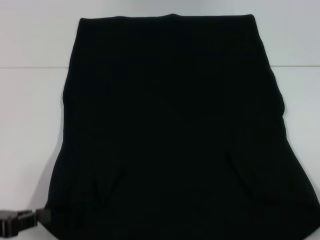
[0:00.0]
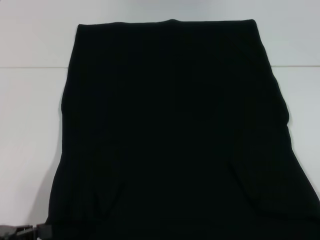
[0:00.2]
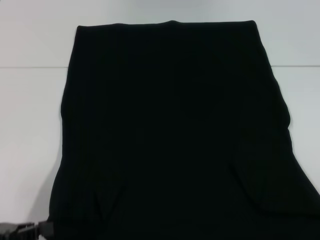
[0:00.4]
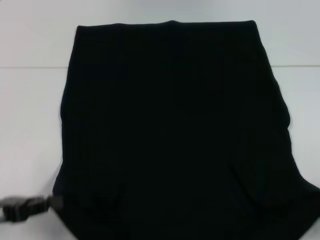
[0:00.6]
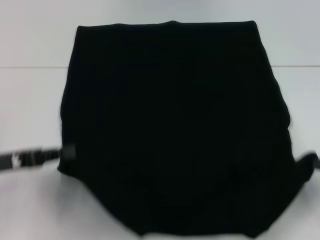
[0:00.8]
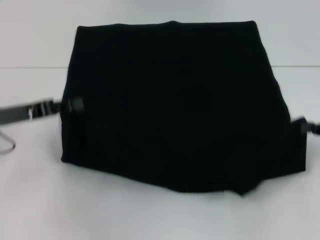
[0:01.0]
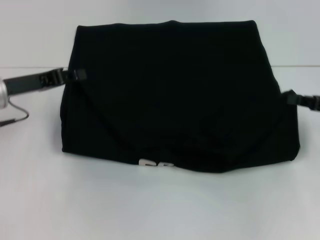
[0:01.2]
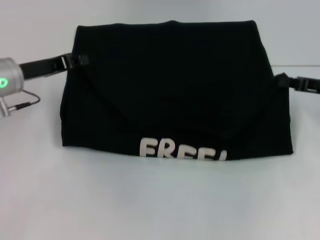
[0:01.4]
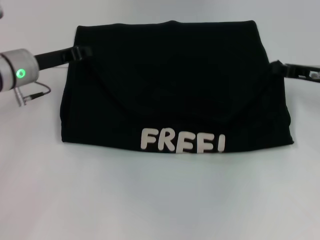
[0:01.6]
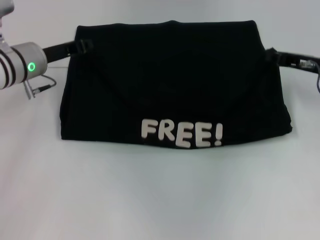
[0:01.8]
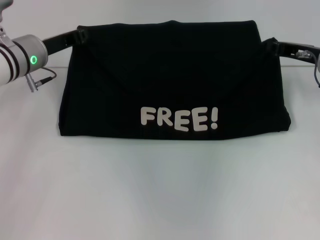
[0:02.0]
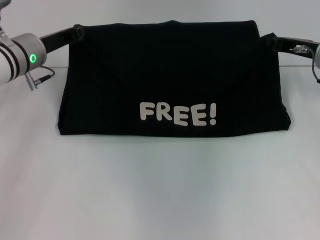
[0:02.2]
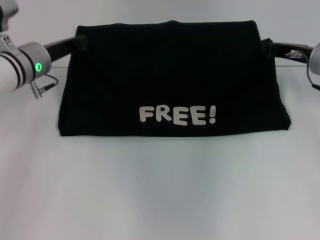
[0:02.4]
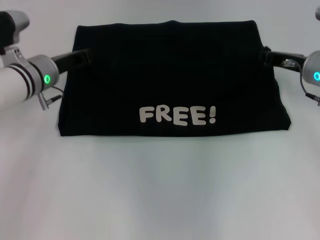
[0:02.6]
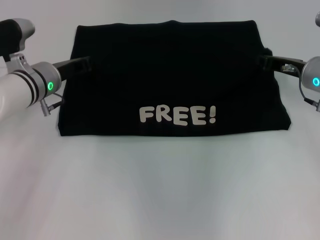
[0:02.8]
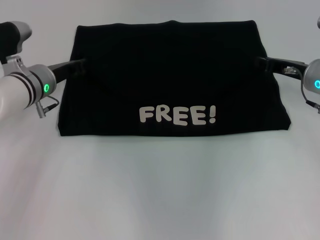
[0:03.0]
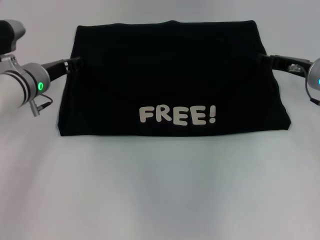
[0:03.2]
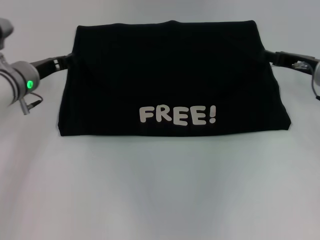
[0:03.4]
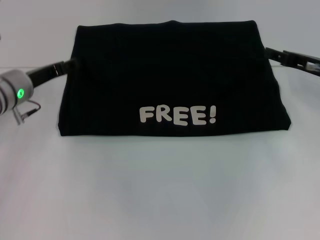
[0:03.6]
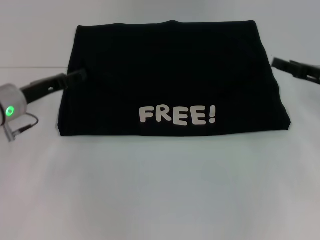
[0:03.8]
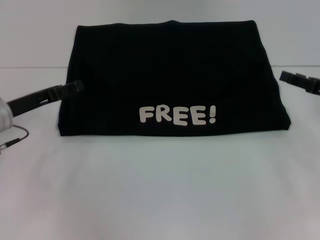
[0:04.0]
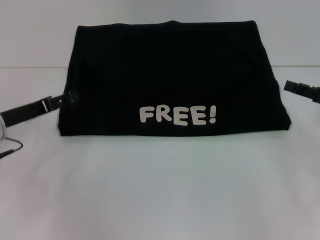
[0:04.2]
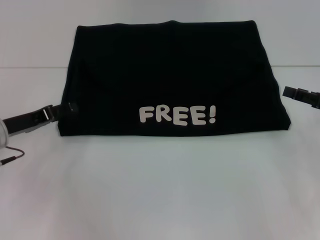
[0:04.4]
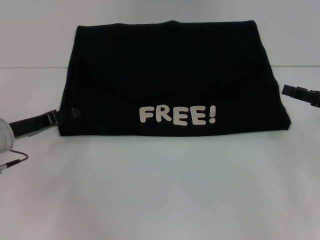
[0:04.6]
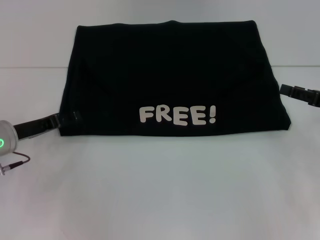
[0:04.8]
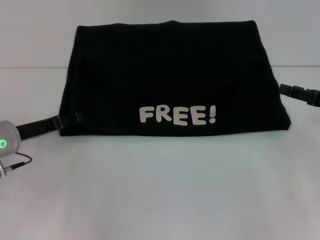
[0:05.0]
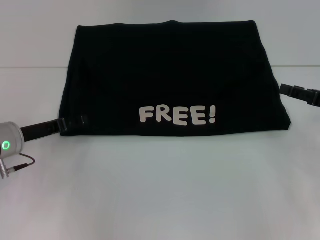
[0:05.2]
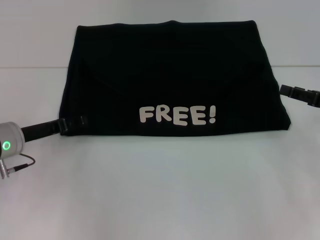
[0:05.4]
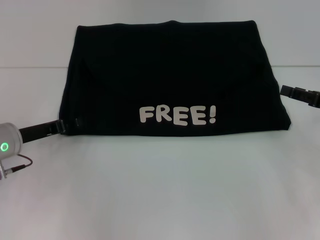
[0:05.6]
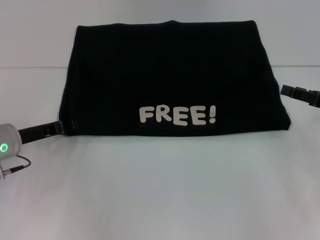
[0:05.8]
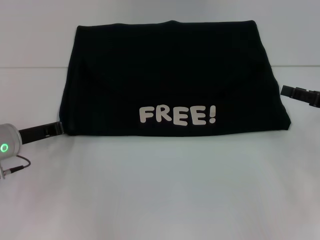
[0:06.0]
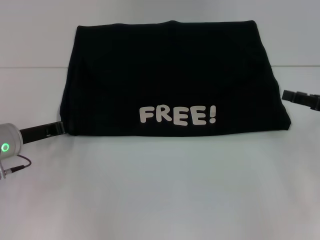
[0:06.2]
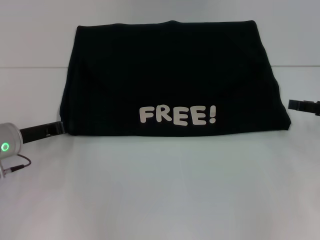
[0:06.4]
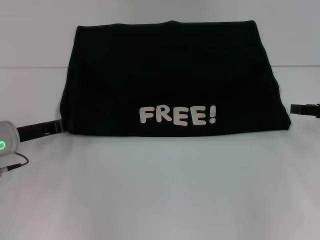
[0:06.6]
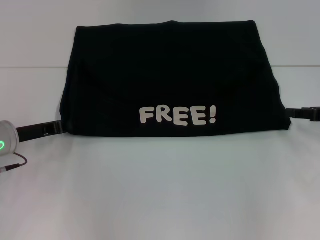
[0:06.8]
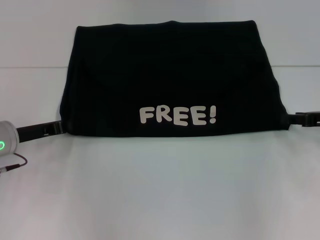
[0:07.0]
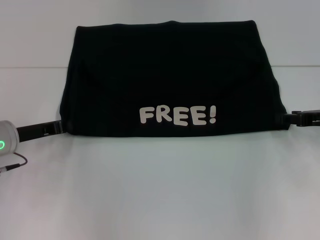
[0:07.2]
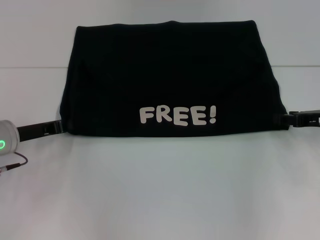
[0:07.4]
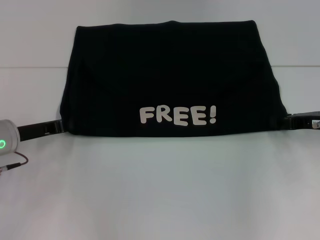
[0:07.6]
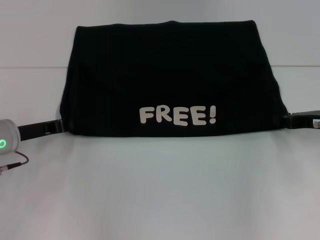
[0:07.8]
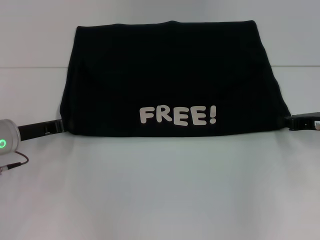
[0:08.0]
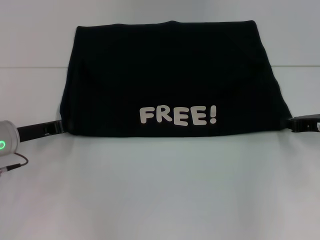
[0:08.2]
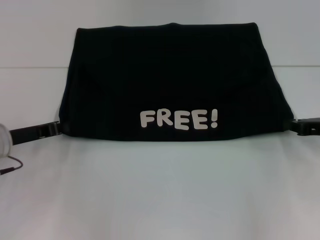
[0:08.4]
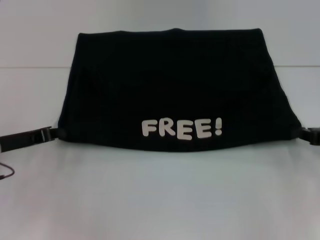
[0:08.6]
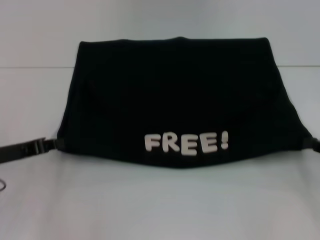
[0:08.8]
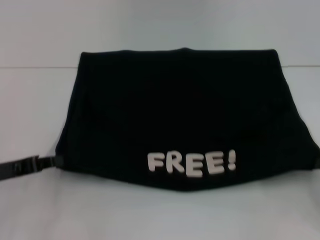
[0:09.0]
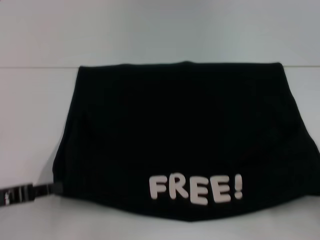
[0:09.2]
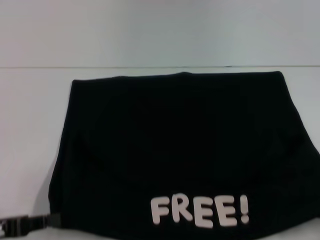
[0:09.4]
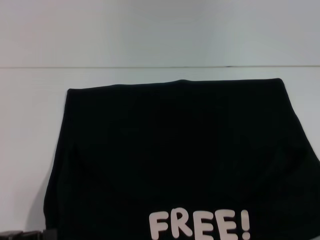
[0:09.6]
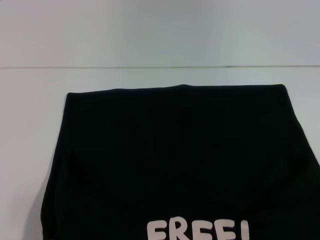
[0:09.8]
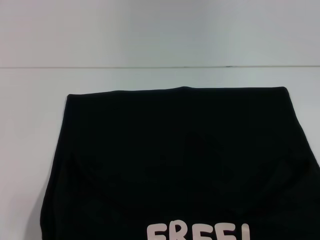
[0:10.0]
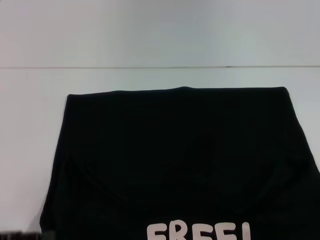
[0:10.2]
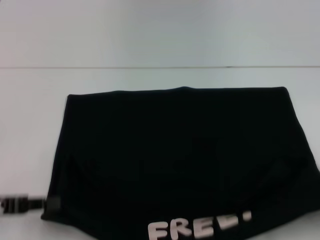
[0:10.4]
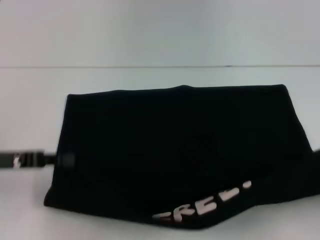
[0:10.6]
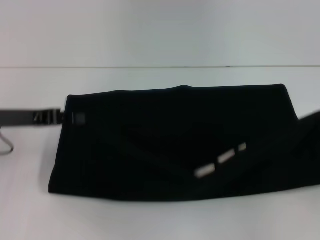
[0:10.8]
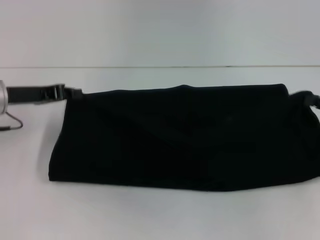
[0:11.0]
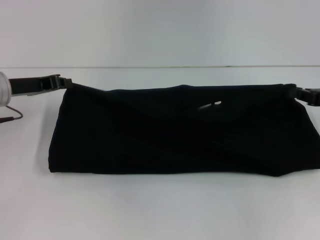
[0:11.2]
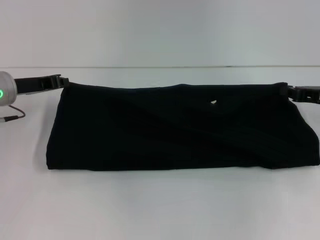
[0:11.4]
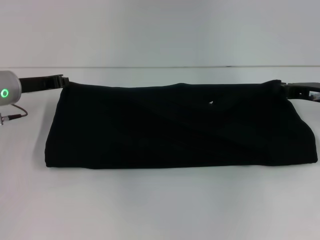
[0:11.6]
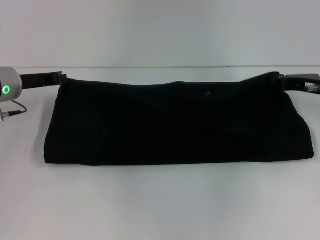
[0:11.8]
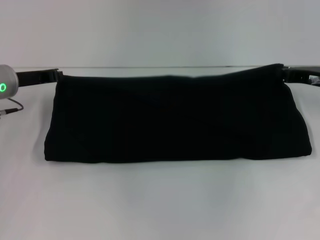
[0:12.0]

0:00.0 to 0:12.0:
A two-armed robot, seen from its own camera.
Step, 0:00.0 to 0:03.2: Fold the clothes with your left hand.
Step, 0:00.0 to 0:03.2: Fold the clothes with your right hand.
Step, 0:03.4 to 0:10.0: Pull the clothes with your left hand.
Step, 0:03.4 to 0:10.0: Pull the clothes with your right hand.
0:00.0 to 0:01.6: The right gripper shifts roughly 25 cm forward and to the left. Meanwhile the left gripper travels forward by approximately 25 cm.
0:01.6 to 0:03.0: The grippers stay close to where they were, moving slightly.
0:03.0 to 0:04.4: The left gripper moves backward and to the left, approximately 10 cm, and opens up. The right gripper travels to the right and backward by some 15 cm, and opens.
0:04.4 to 0:06.0: The left gripper closes up.
0:06.0 to 0:07.6: The left gripper closes.
0:07.6 to 0:09.0: The right gripper moves backward and to the right, approximately 15 cm, and closes; the left gripper is displaced backward by about 10 cm.
0:09.0 to 0:10.4: The right gripper heads backward, covering approximately 10 cm.
0:10.4 to 0:12.0: The right gripper travels forward and to the left by roughly 25 cm, while the left gripper heads forward, covering roughly 20 cm.

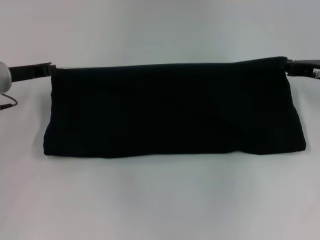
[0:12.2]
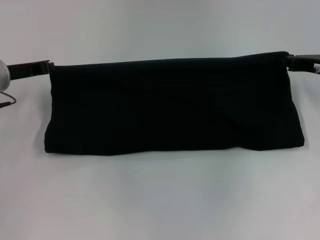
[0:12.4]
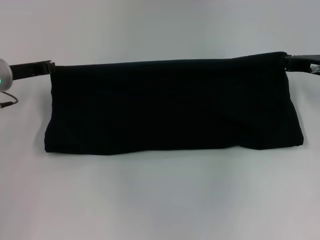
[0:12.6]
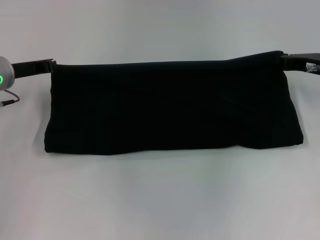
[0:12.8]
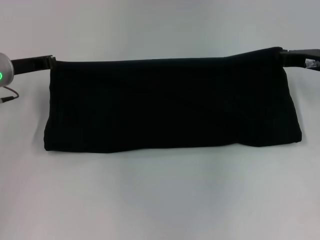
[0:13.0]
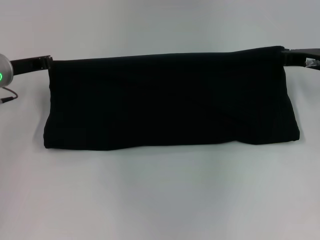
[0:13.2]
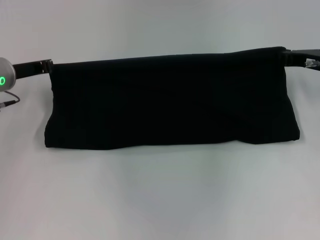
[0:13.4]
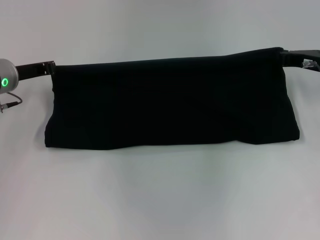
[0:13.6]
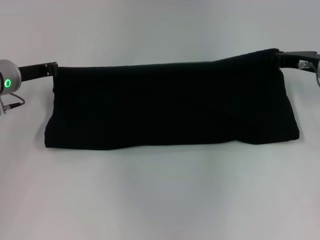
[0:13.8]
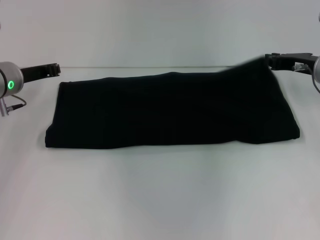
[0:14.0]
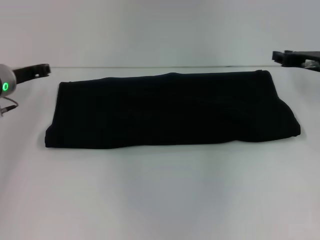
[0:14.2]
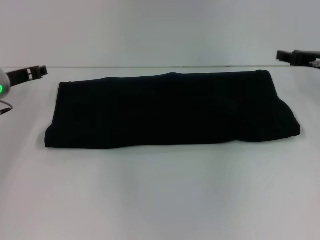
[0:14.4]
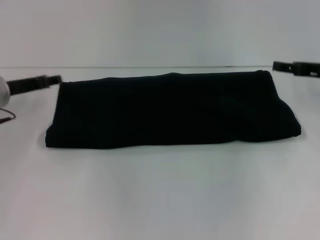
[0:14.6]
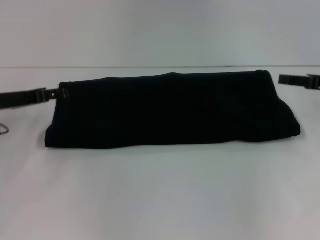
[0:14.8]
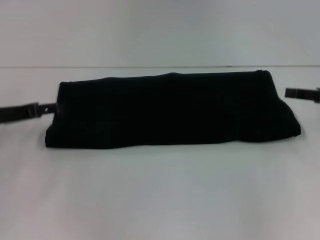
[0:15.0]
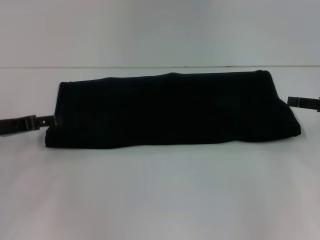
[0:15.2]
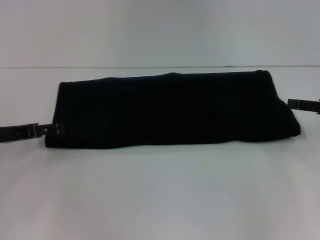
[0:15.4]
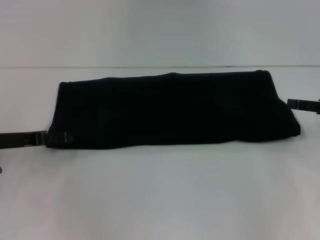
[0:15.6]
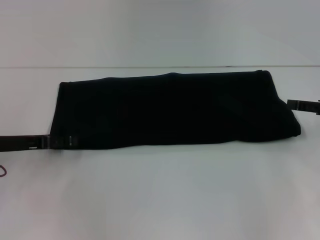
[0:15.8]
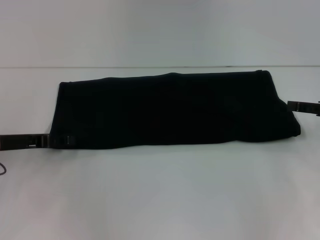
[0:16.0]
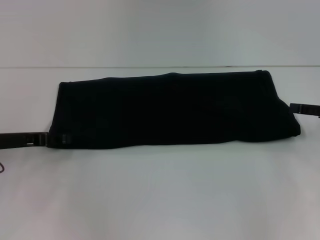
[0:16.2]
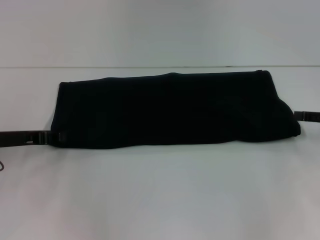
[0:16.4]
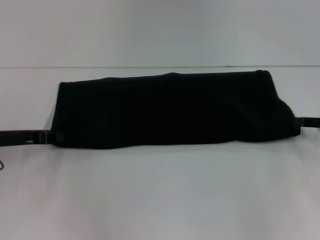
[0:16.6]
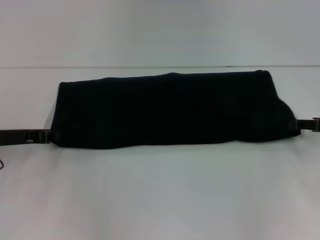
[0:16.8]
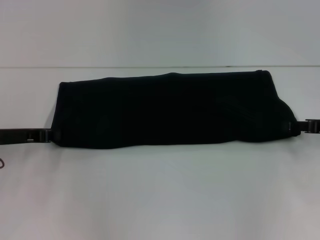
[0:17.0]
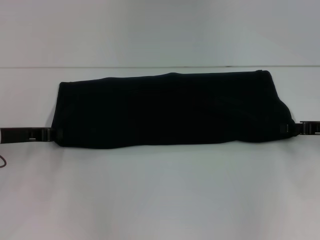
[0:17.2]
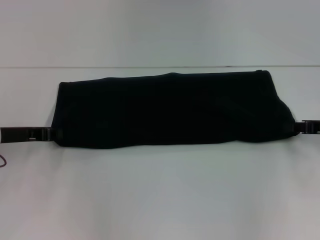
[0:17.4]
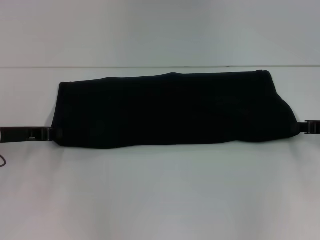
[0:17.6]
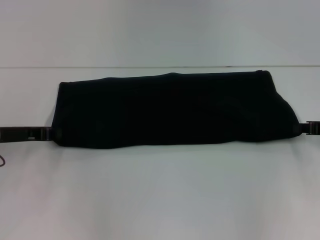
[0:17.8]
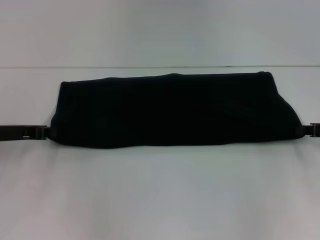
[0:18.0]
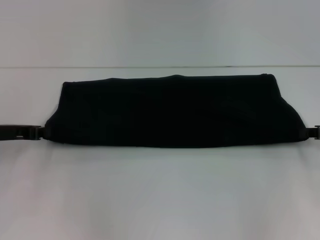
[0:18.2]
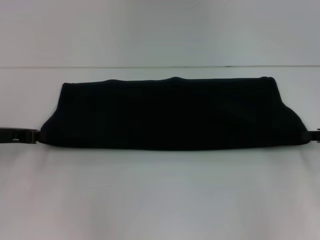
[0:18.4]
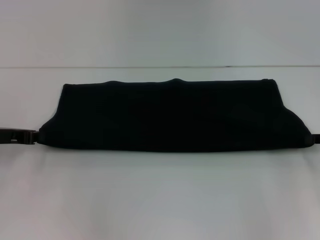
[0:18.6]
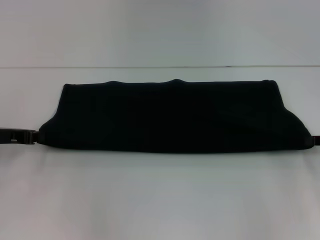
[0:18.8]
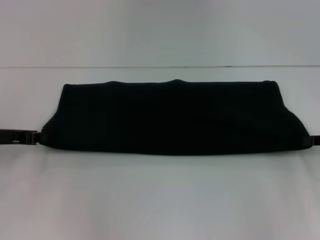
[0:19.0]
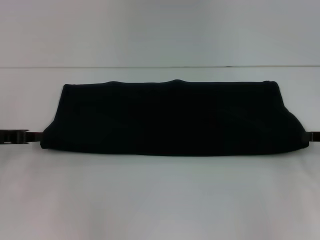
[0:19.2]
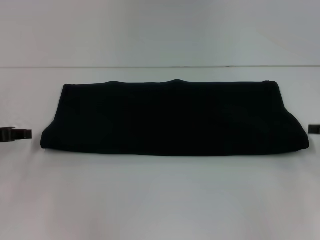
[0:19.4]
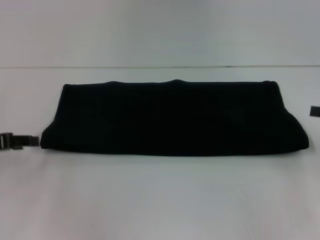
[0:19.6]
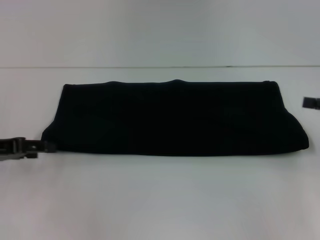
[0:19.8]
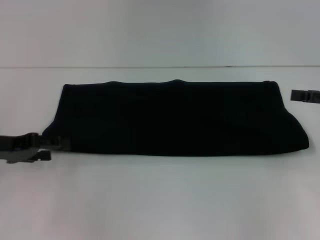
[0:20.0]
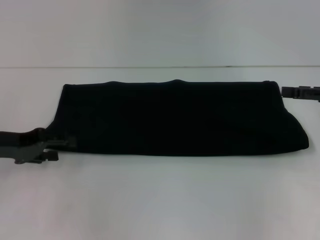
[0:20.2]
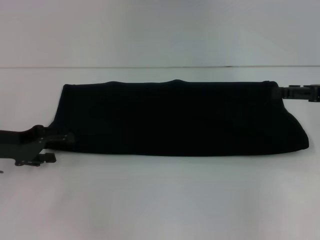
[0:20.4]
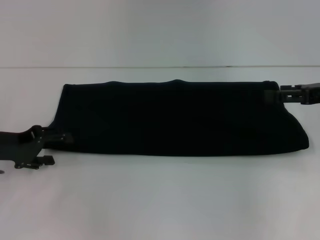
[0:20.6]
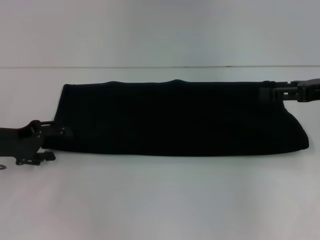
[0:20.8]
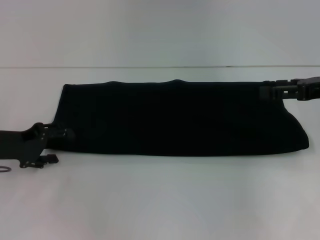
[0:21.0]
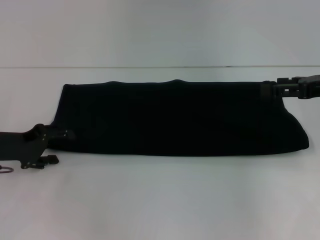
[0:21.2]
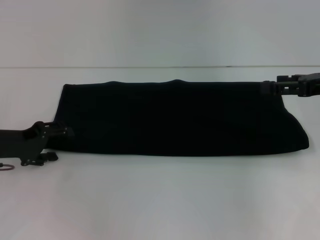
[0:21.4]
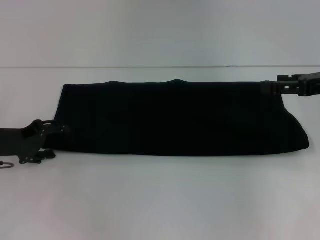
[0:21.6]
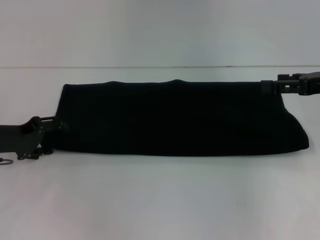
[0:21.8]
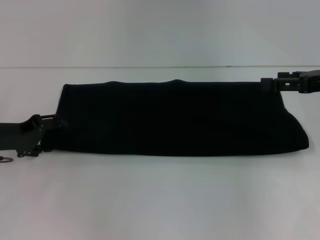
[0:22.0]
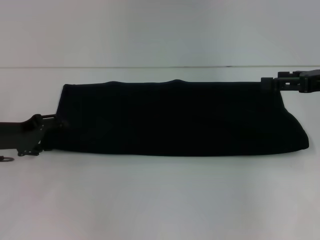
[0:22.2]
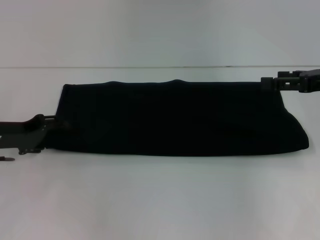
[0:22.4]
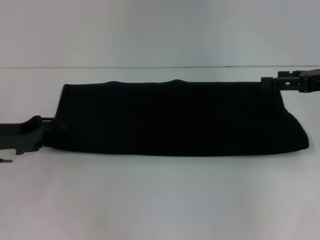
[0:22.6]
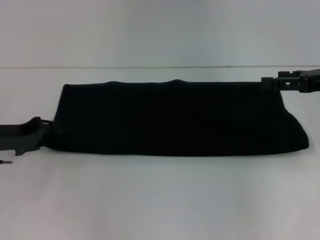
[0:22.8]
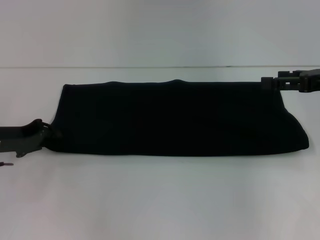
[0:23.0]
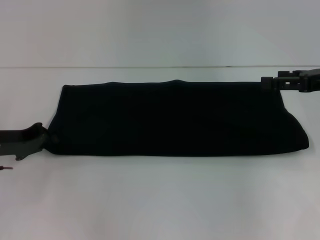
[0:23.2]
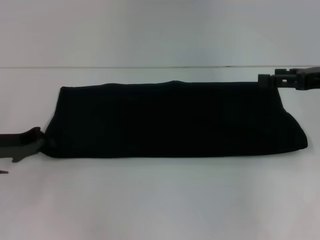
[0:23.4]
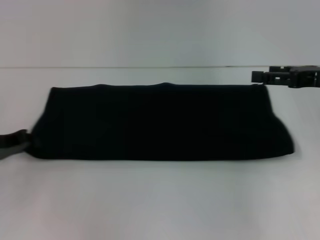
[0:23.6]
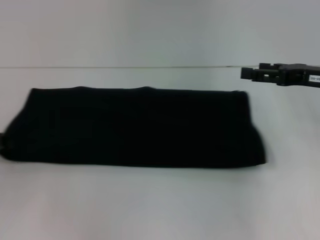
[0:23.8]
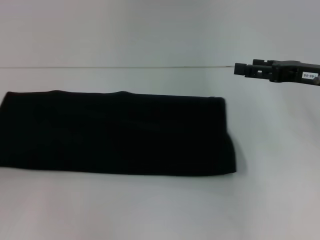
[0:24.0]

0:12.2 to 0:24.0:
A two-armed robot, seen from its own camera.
Step, 0:12.2 to 0:14.6: Fold the clothes with your right hand.
0:12.2 to 0:13.6: The grippers make only small movements.
0:13.6 to 0:15.2: The left gripper heads backward, covering approximately 10 cm, and opens up. Meanwhile the right gripper heads backward and to the right, covering about 10 cm, and opens.
0:15.2 to 0:16.6: The left gripper closes.
0:16.6 to 0:18.2: The right gripper closes up, while the left gripper closes.
0:18.2 to 0:19.6: The left gripper changes place by roughly 5 cm, and opens up. Meanwhile the right gripper moves approximately 5 cm, and opens.
0:19.6 to 0:21.0: The right gripper travels to the left and forward by about 10 cm, and opens its fingers. The left gripper moves about 5 cm, and opens up.
0:21.0 to 0:22.6: The grippers stay close to where they were, moving slightly.
0:22.6 to 0:24.0: The left gripper moves to the left, approximately 10 cm, and closes its fingers.
